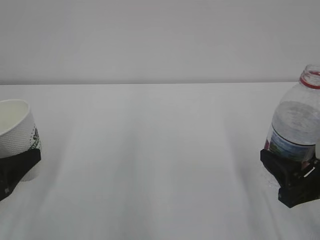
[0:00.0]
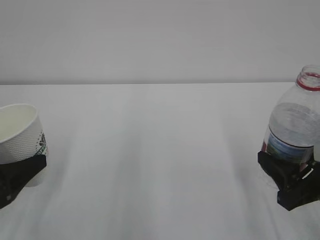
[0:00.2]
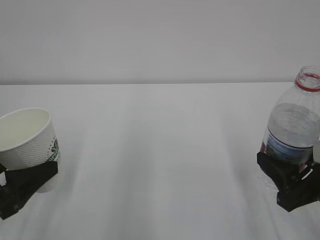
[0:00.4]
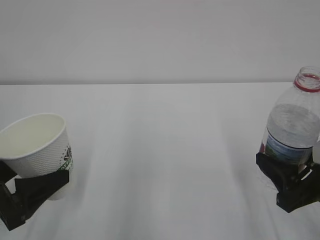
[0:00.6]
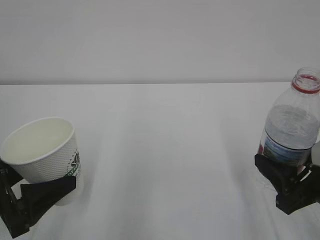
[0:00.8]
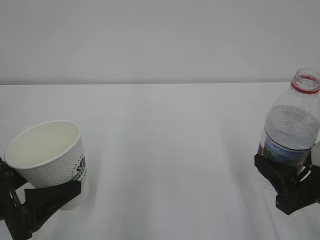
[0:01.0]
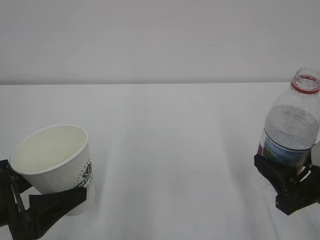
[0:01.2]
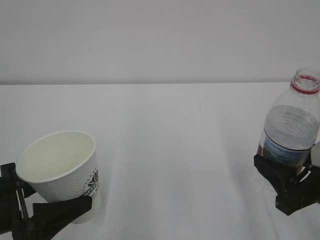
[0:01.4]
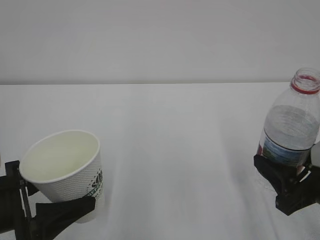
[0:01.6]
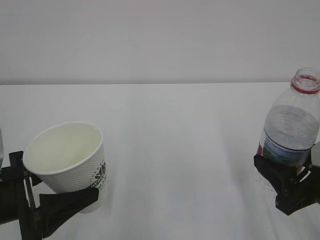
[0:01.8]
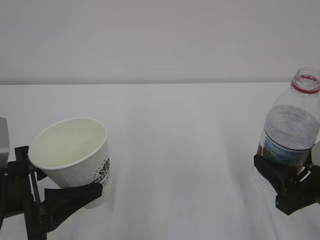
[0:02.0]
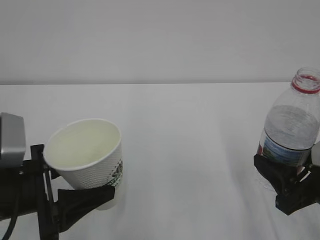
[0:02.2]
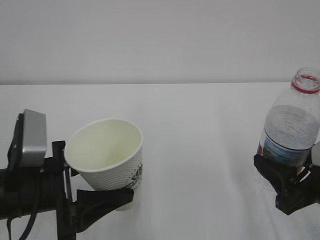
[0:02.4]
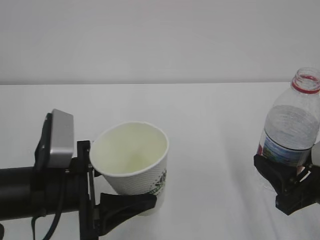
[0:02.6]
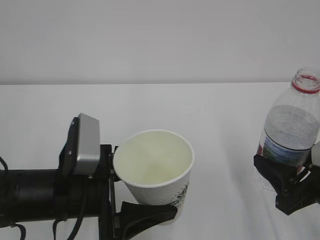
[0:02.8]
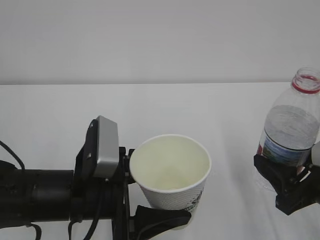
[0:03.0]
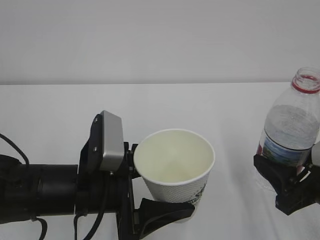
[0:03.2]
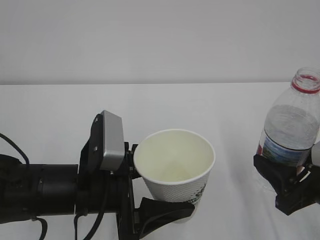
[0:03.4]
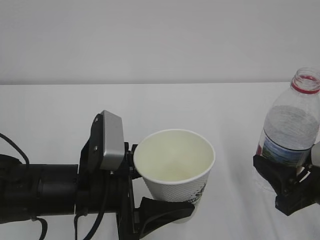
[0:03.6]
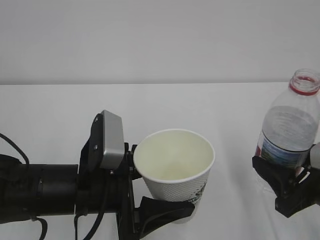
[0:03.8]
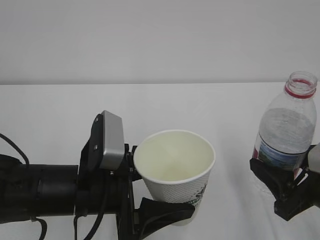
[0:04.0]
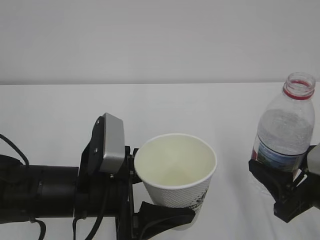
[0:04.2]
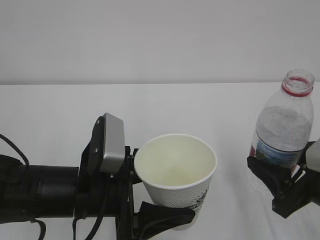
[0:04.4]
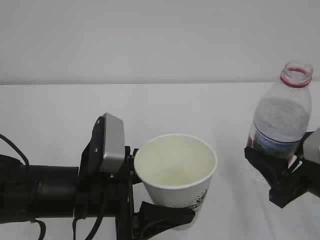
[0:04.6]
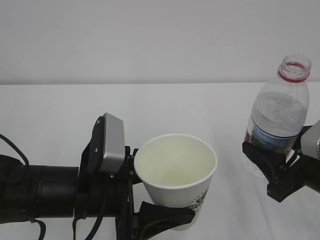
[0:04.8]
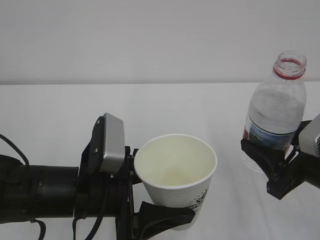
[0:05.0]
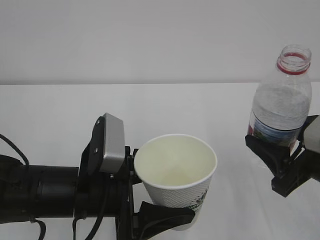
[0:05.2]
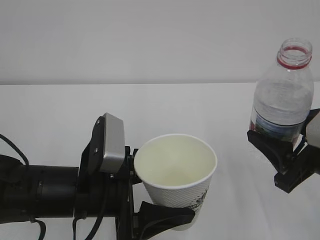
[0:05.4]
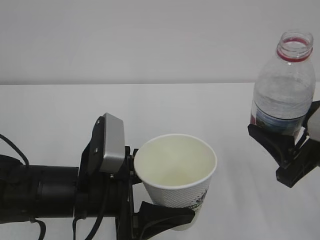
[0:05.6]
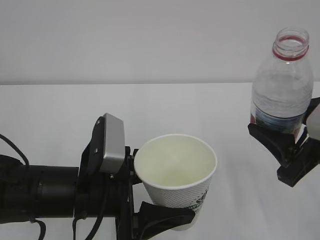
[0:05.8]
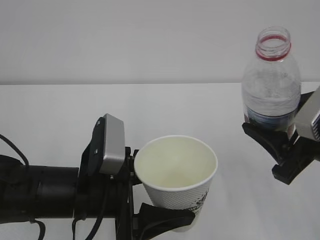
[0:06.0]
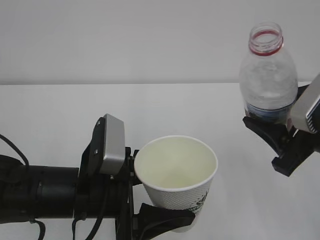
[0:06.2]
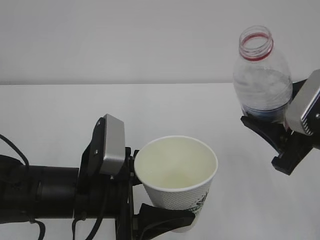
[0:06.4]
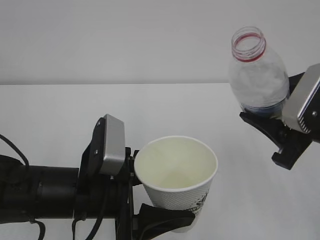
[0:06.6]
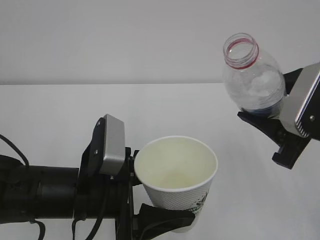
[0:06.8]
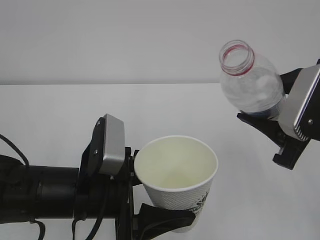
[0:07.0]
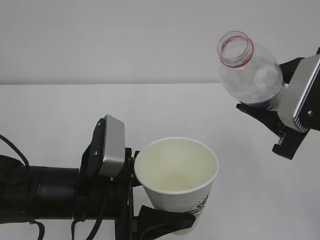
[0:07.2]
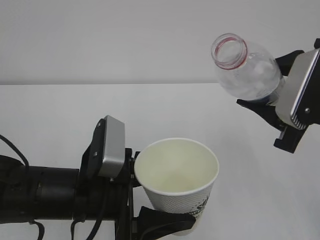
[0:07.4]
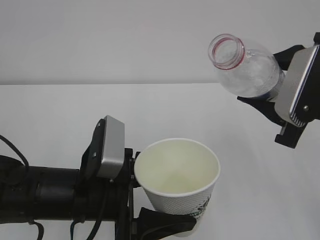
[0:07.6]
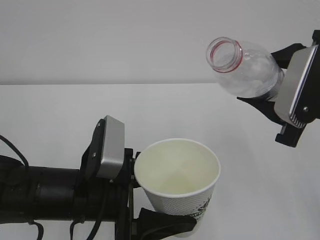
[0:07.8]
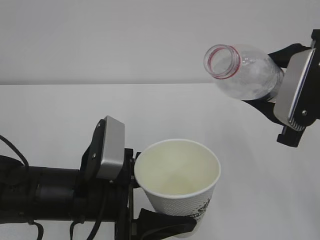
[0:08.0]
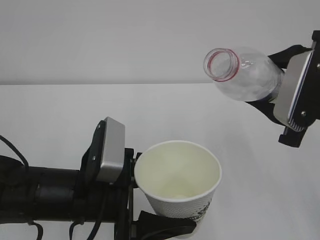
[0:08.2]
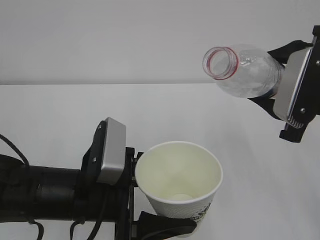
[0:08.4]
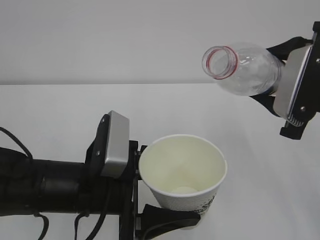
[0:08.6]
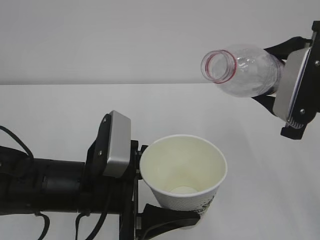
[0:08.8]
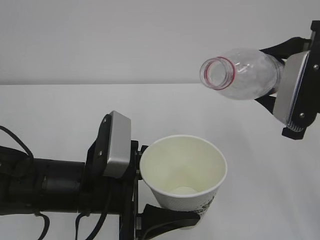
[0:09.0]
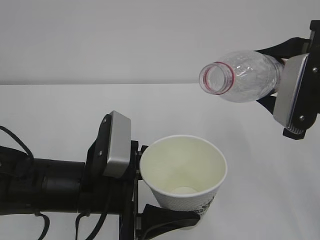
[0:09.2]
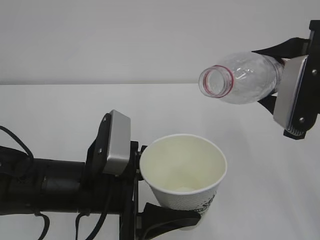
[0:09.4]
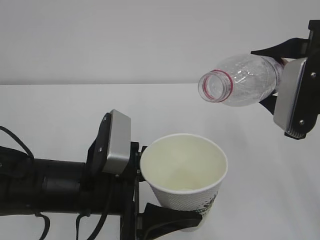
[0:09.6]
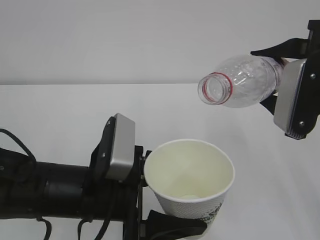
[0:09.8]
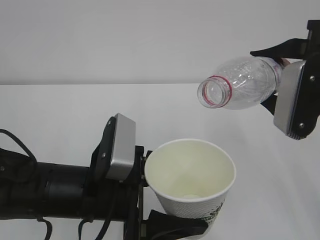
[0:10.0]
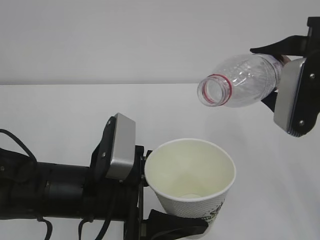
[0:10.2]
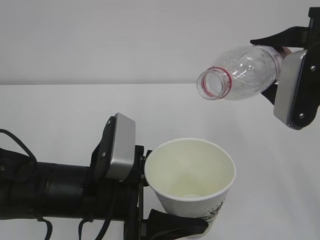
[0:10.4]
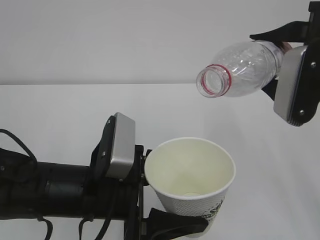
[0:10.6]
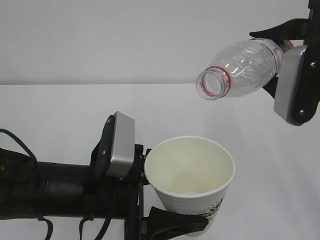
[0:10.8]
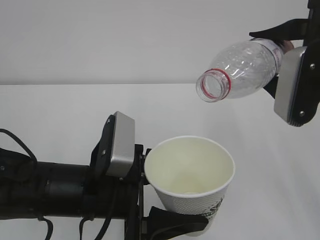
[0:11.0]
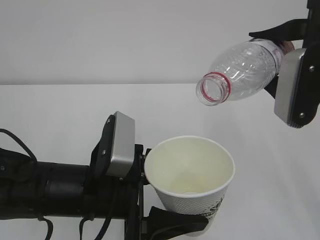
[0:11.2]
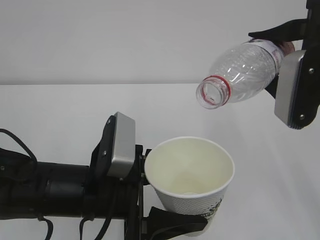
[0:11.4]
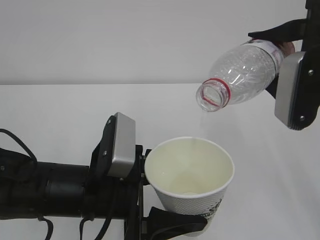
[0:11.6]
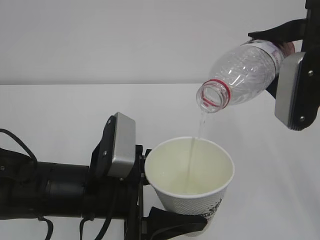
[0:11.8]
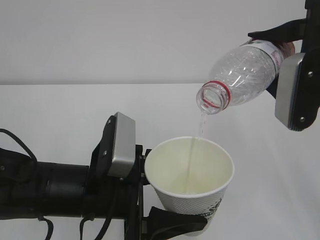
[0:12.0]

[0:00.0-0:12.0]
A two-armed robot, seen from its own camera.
0:00.0 to 0:01.6: The left gripper shifts roughly 5 cm to the right.
0:01.6 to 0:03.0: The left gripper heads to the right, covering approximately 10 cm.
0:03.0 to 0:04.4: Both grippers stay put.
0:04.4 to 0:06.0: The right gripper moves upward, roughly 5 cm.
0:06.0 to 0:07.6: The right gripper ends up some 5 cm from where it was.
0:07.6 to 0:09.0: The grippers stay close to where they were, moving slightly.
0:09.0 to 0:12.0: The grippers move only a little.

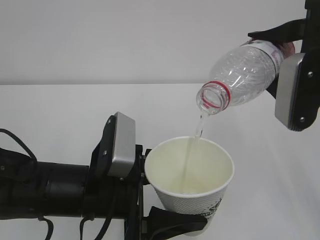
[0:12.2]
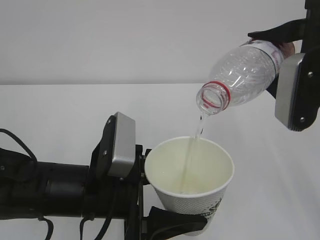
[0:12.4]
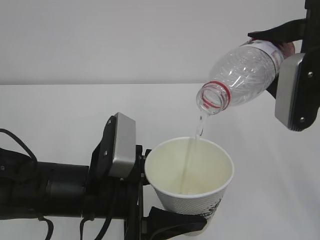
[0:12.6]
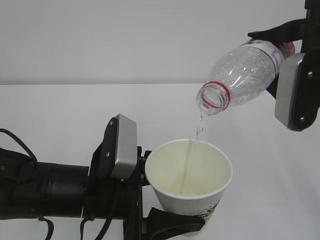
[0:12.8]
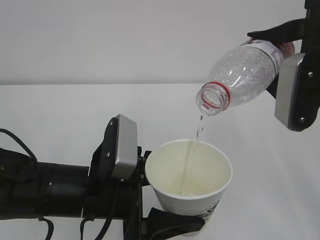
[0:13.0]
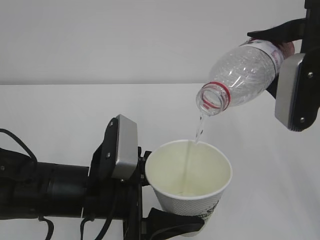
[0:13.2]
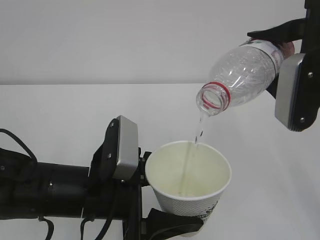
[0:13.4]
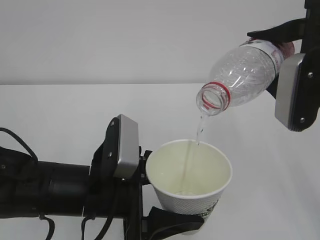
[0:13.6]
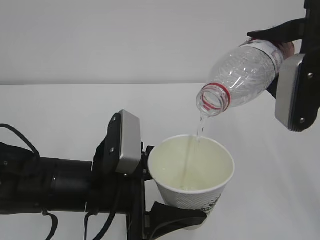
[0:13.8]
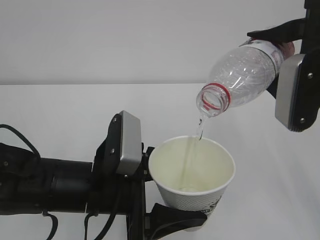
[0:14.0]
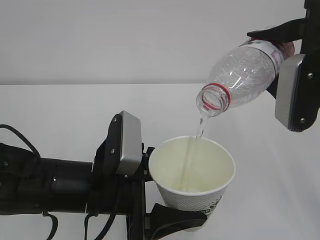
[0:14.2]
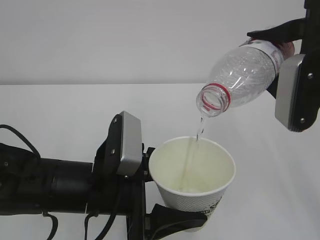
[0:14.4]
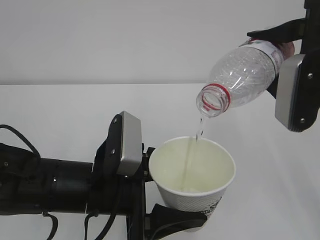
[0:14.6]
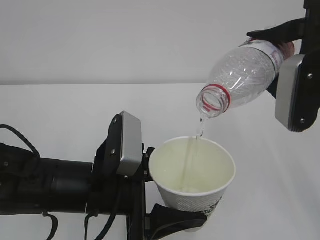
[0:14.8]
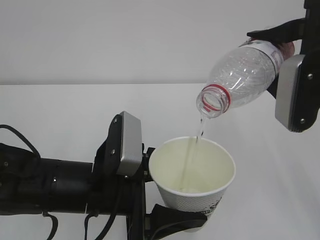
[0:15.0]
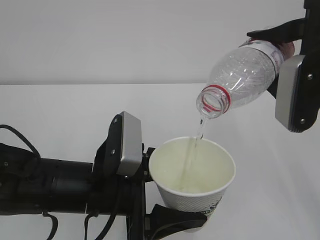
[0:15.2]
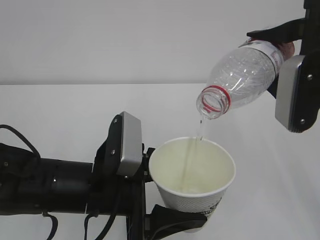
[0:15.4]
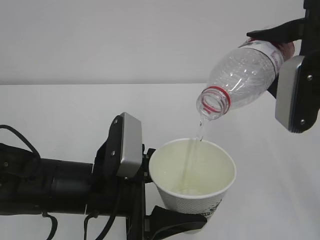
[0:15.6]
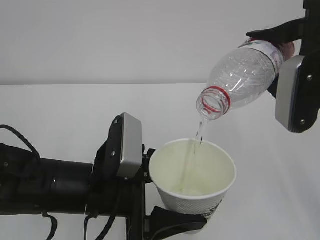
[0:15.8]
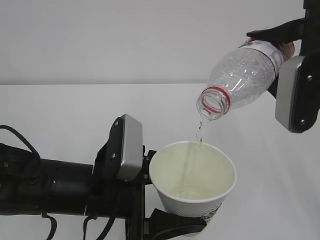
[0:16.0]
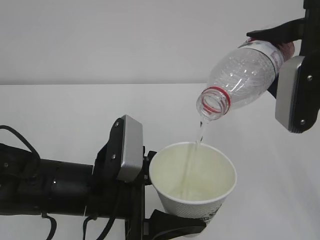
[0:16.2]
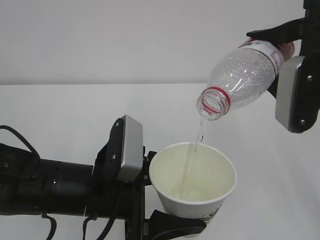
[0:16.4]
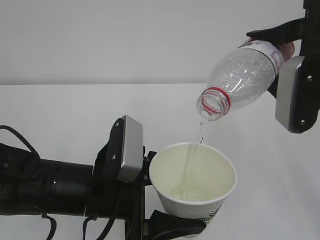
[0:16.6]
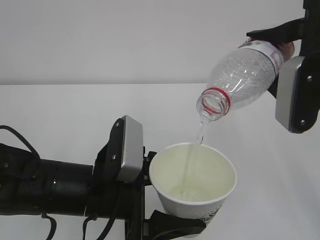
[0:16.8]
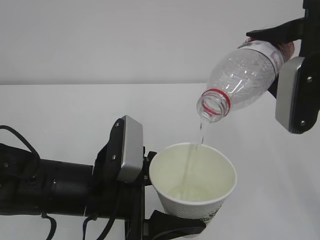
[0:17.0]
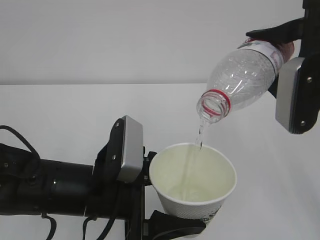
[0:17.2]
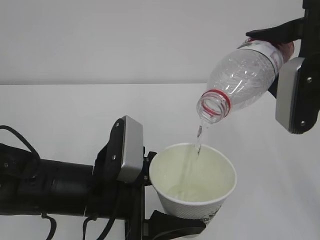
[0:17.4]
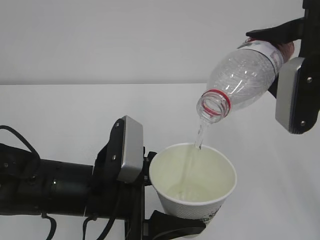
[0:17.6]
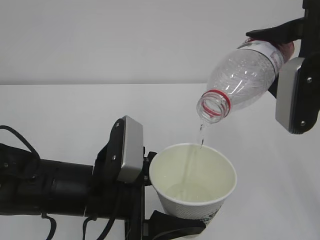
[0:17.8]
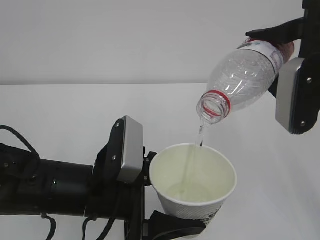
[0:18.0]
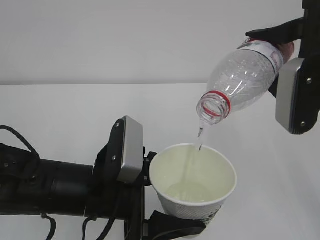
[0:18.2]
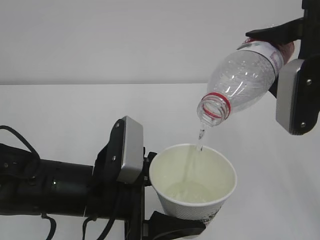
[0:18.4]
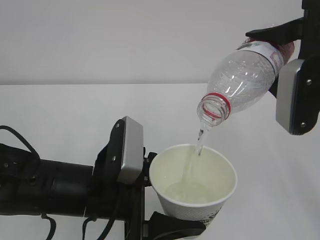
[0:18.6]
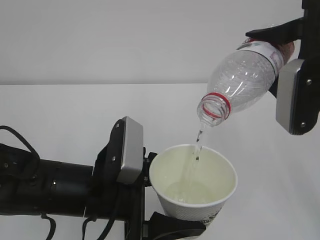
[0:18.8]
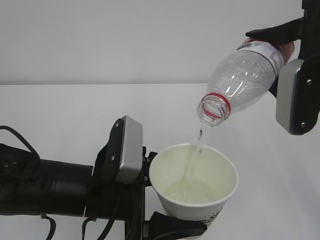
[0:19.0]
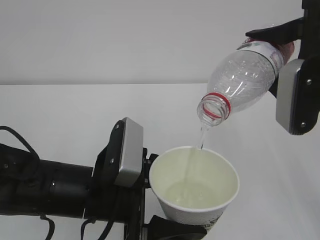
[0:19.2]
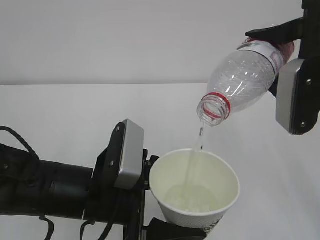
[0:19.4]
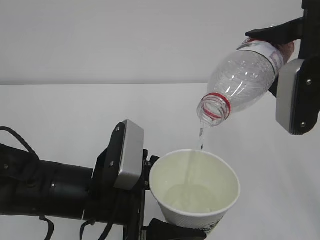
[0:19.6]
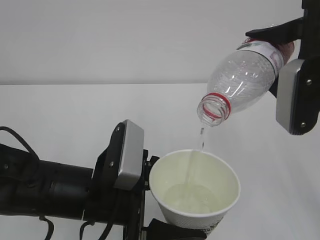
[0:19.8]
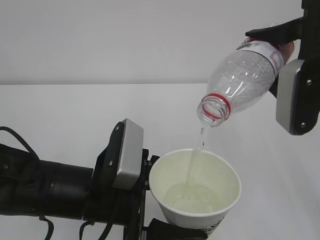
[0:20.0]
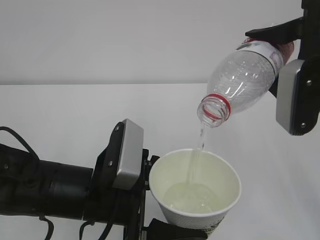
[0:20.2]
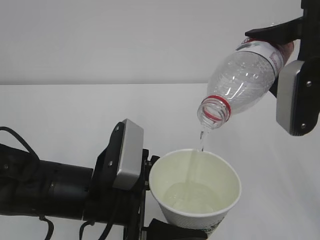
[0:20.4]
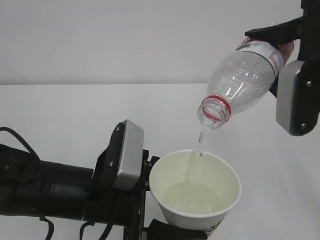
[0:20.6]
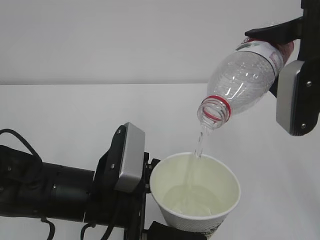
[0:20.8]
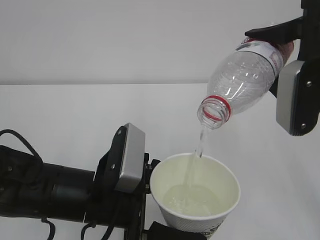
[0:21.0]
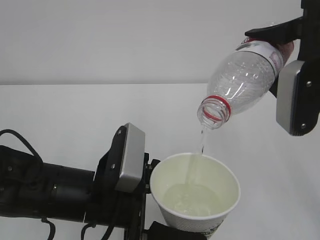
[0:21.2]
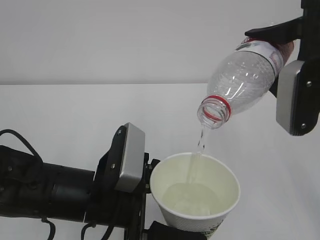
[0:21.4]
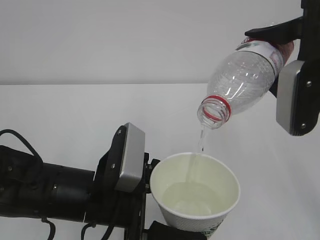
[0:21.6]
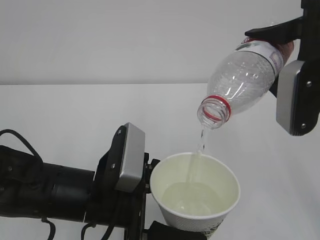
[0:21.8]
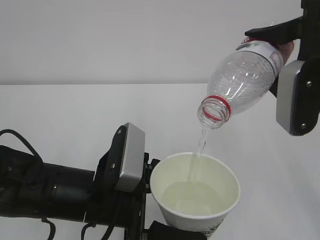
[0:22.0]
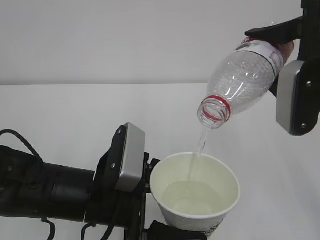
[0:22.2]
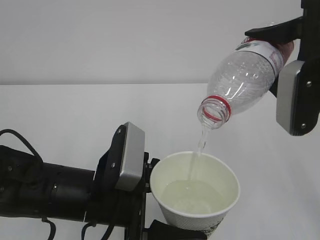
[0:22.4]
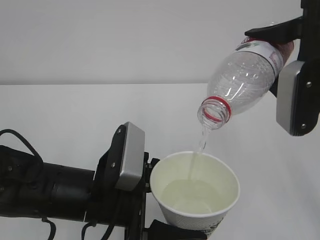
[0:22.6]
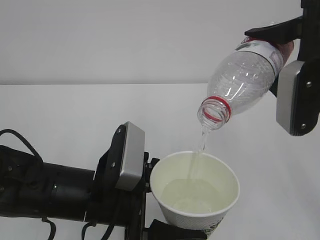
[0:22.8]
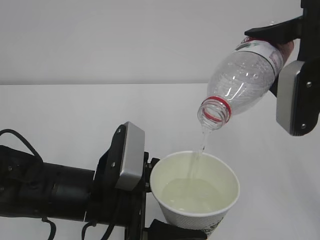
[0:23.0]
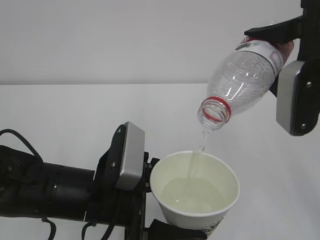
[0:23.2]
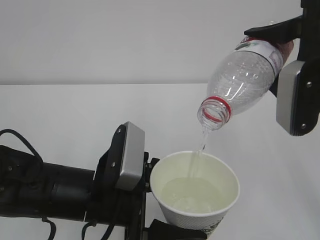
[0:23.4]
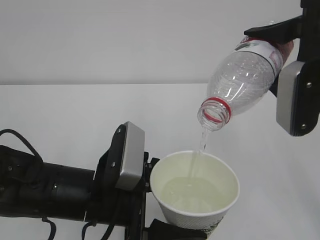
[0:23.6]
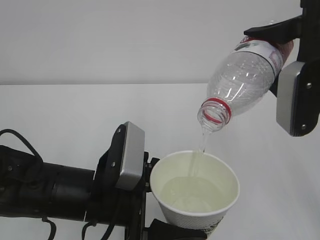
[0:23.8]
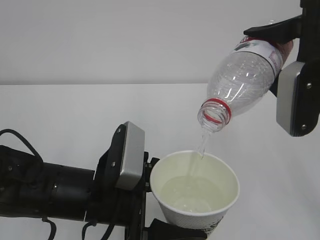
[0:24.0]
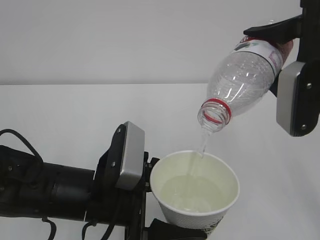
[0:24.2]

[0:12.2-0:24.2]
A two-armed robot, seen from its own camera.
0:12.2 to 0:18.2: The two grippers keep their place.
0:18.2 to 0:24.2: Neither gripper changes place.
